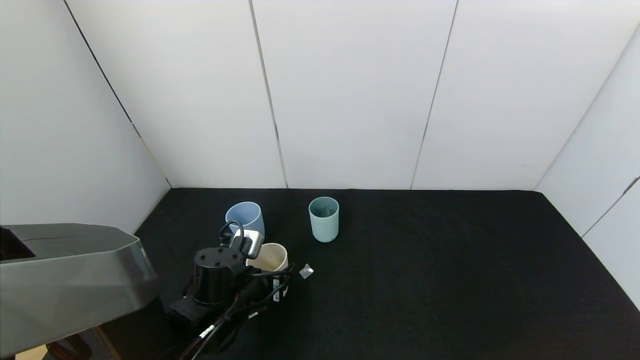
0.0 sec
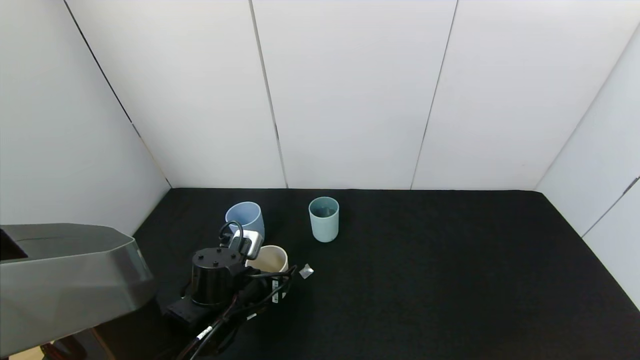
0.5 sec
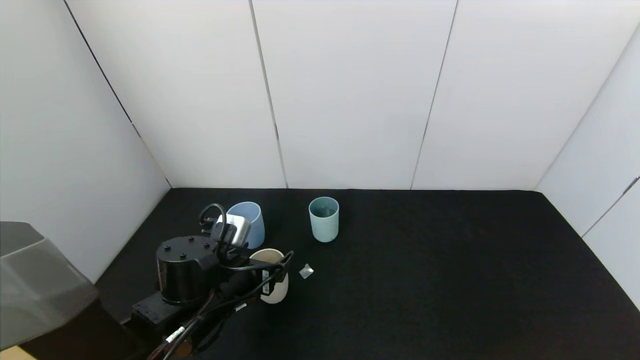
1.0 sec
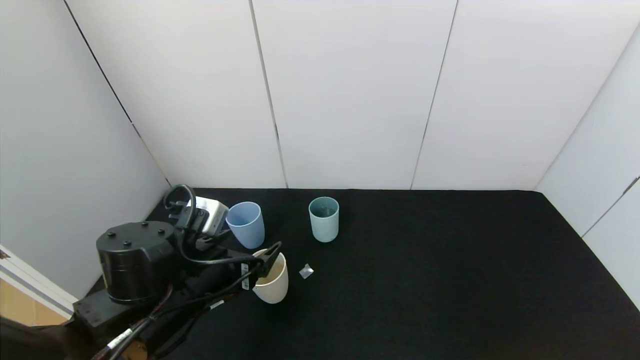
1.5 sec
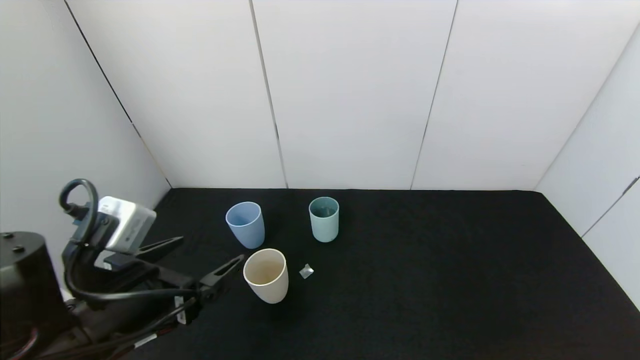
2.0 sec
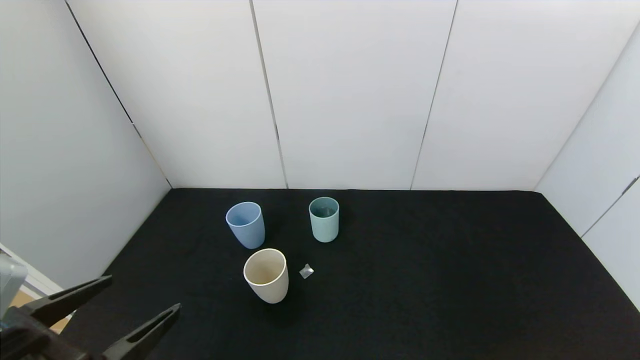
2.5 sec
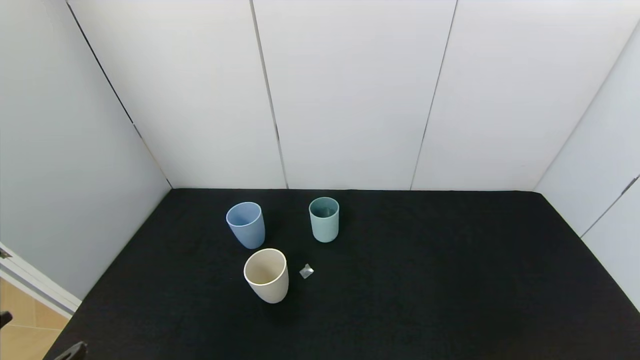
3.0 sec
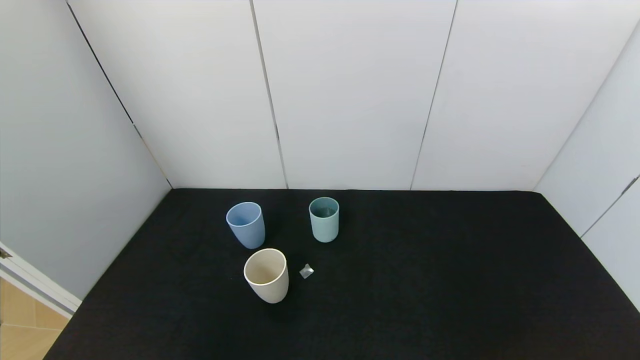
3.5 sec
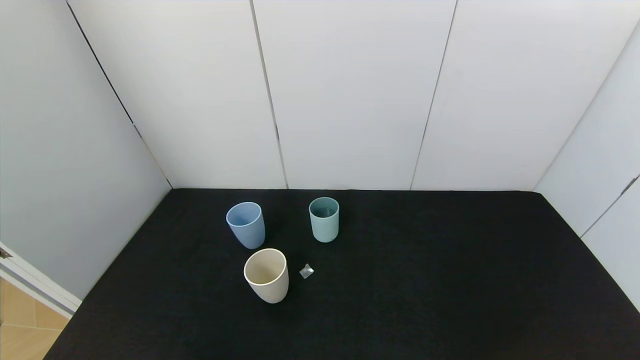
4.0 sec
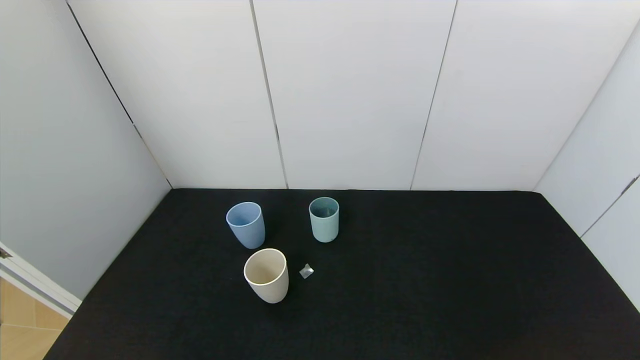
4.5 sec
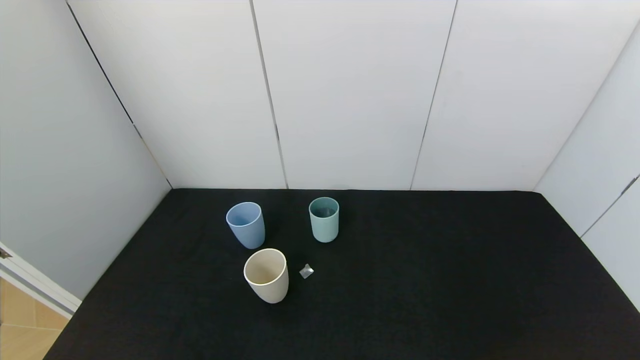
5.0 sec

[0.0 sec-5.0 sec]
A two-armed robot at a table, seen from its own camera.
Task of the whole recording: use the gripper to pour the water into the other two cups on black table.
Step, 0.0 sec to 2.0 sec: Place the white cup with the left gripper.
0.0 sec to 2.5 sec: The left gripper is displaced backward, upward and to the left by some 25 cm, and opens up.
2.5 sec to 5.0 sec: The left gripper is displaced backward and downward by roughly 15 cm.

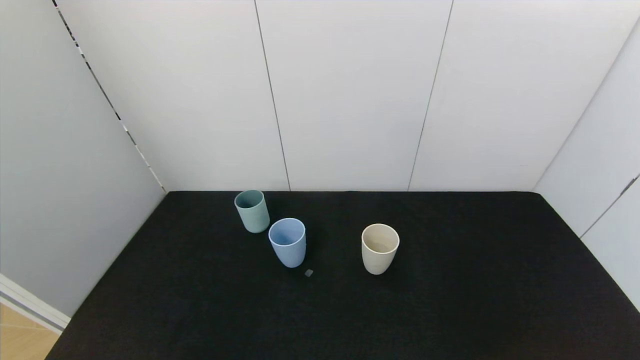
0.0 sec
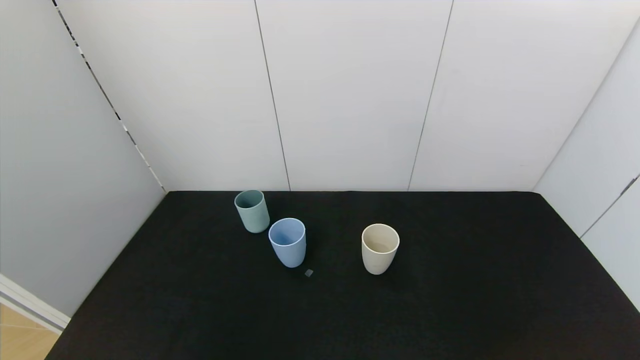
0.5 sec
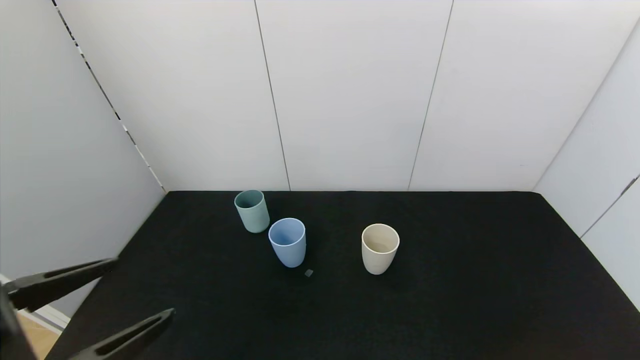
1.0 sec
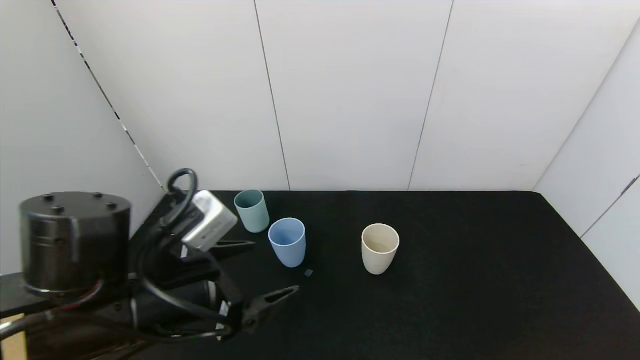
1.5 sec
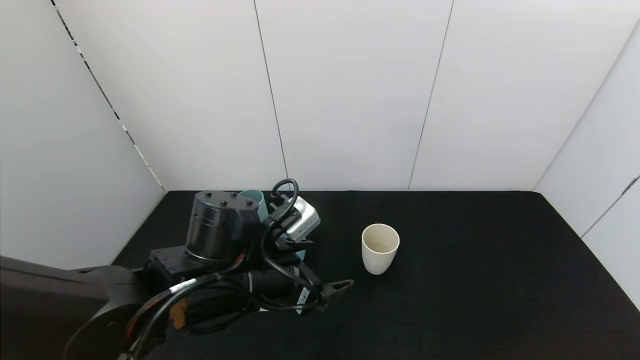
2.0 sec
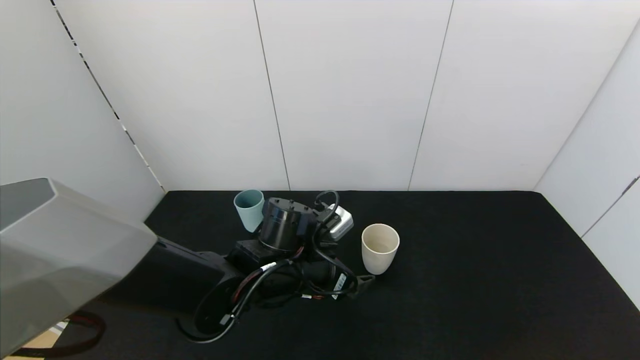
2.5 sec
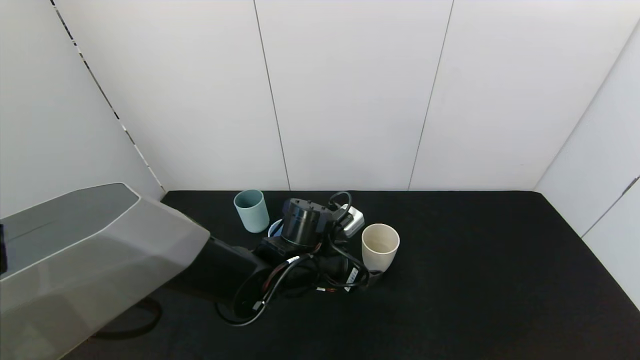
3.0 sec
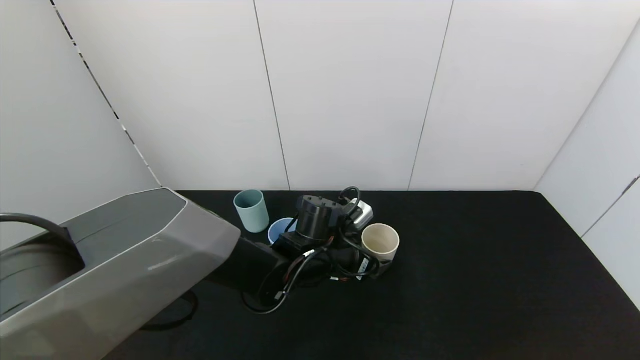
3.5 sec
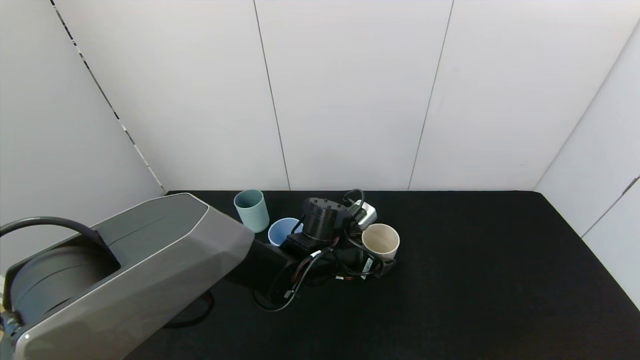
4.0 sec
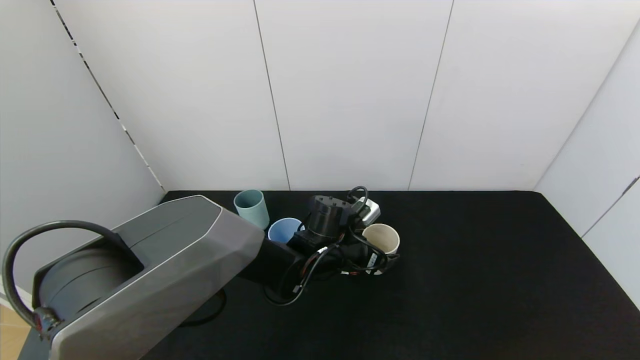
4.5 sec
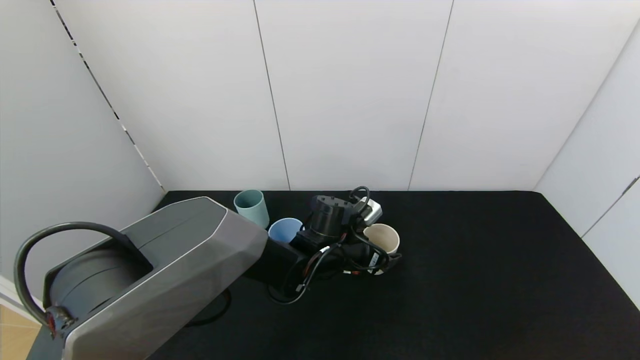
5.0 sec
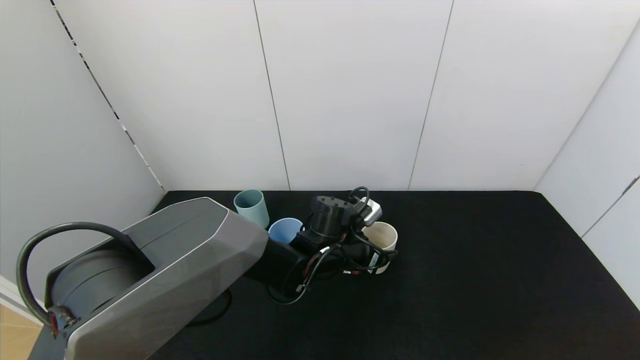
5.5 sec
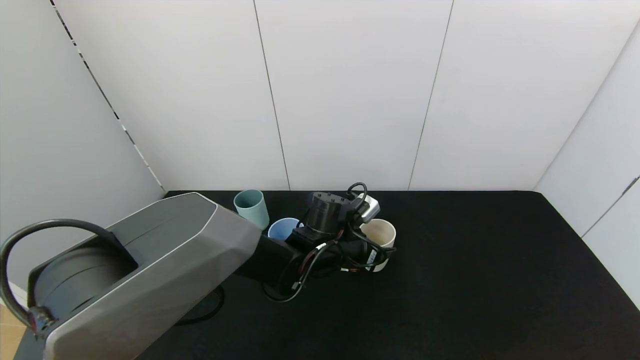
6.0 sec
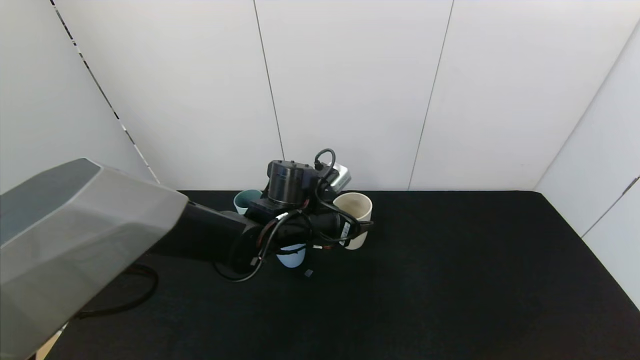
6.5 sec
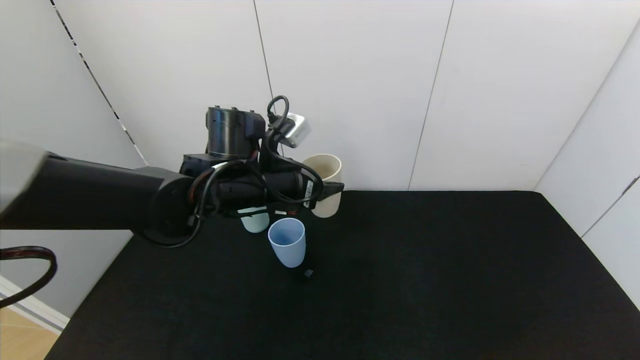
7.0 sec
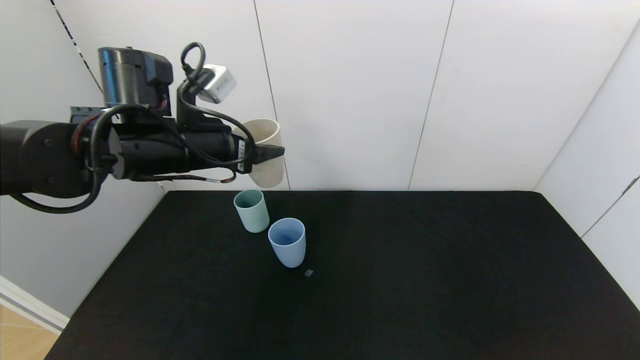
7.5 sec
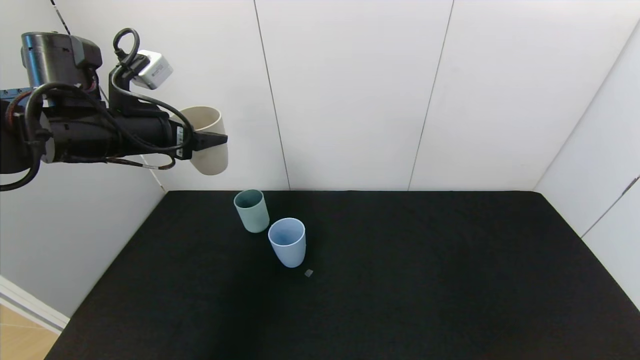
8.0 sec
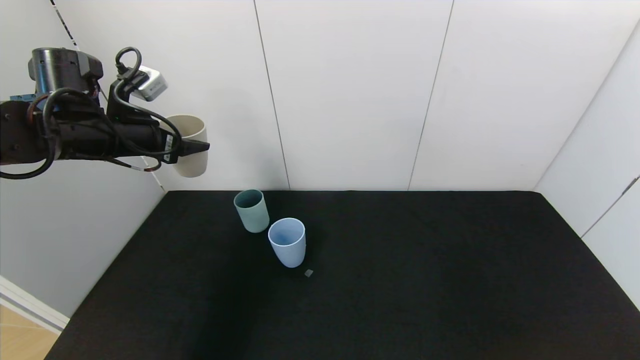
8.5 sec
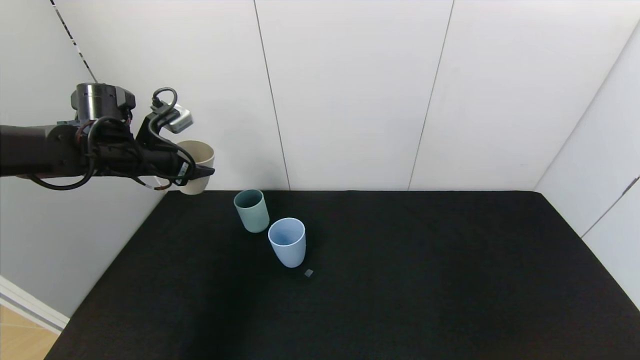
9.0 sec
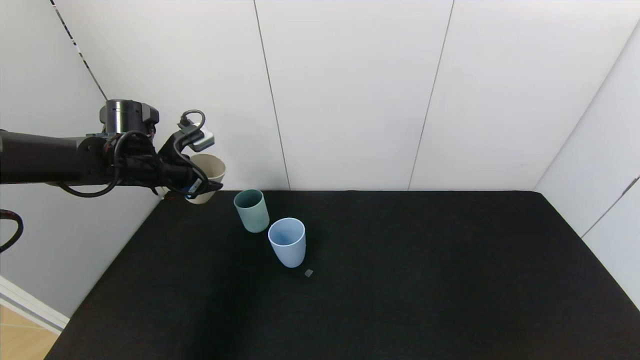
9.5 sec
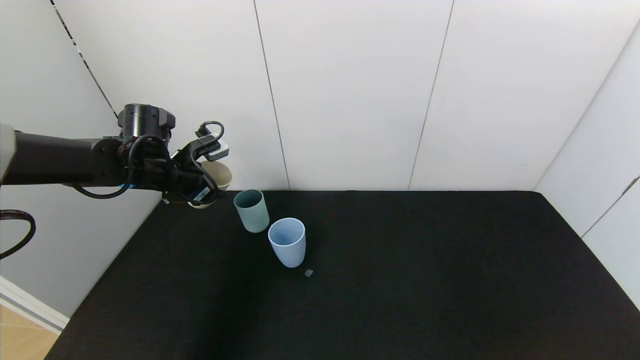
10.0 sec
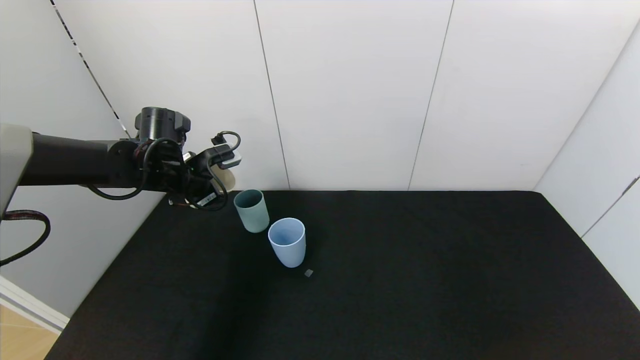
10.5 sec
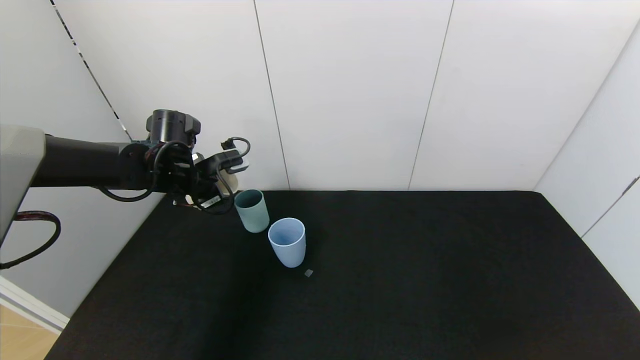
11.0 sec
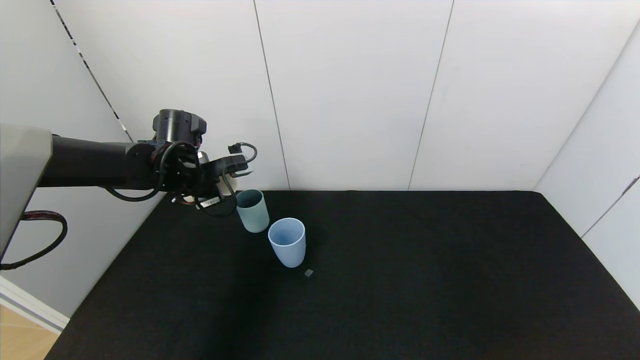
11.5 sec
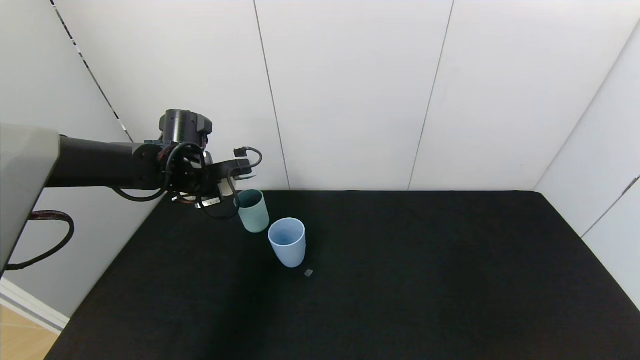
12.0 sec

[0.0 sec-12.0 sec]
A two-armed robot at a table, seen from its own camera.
Task of the whole recording: use the gripper to pour the water into the other two cups on black table.
Step, 0.0 sec to 5.0 sec: Grasp the white cup with the left gripper.
0.0 sec to 2.0 sec: The left gripper travels forward and to the right by roughly 35 cm.
2.0 sec to 4.0 sec: The left gripper goes approximately 15 cm forward, to the right and downward.
4.0 sec to 6.0 sec: The left gripper closes.
6.0 sec to 8.0 sec: The left gripper goes some 35 cm to the left and upward.
8.0 sec to 10.0 sec: The left gripper is displaced downward and forward by approximately 10 cm.

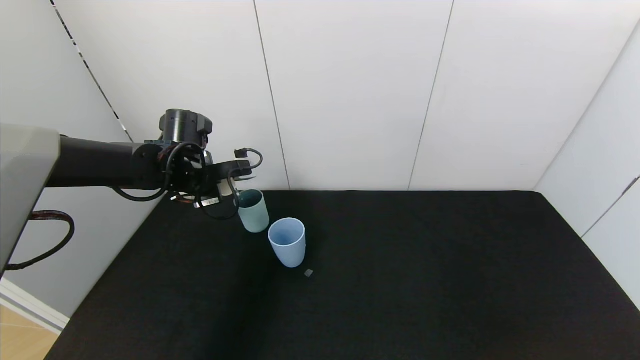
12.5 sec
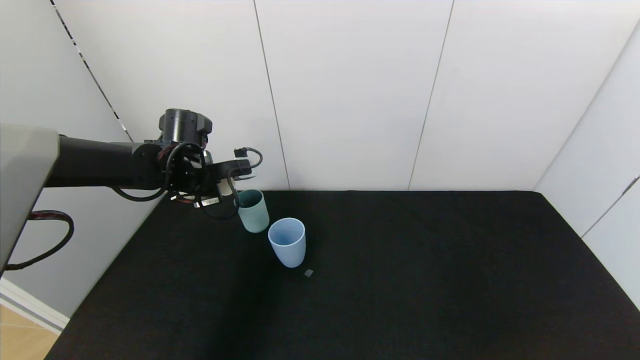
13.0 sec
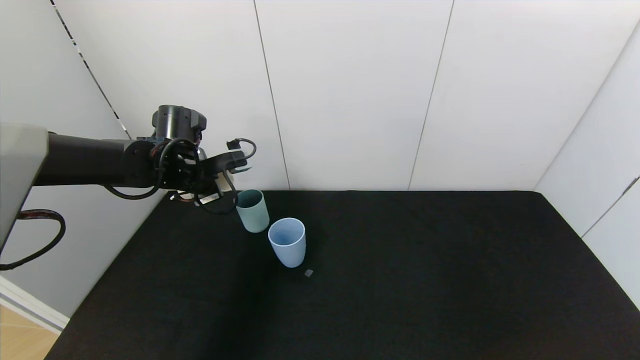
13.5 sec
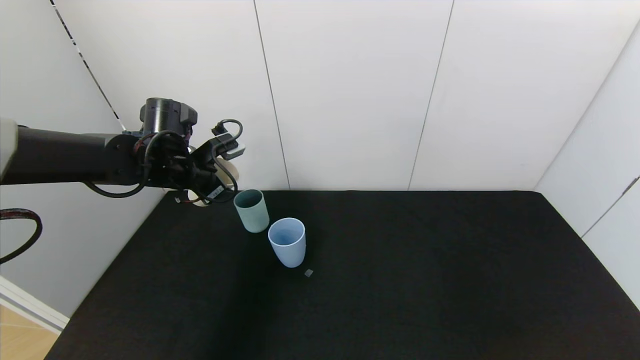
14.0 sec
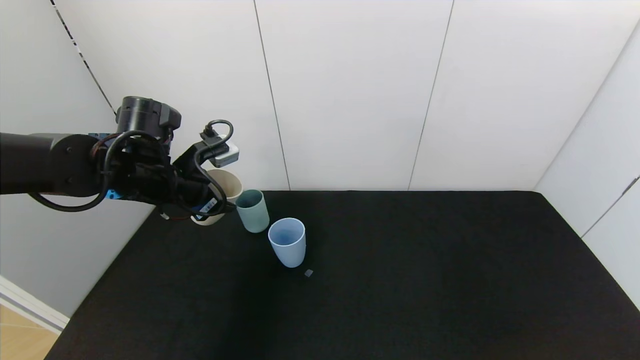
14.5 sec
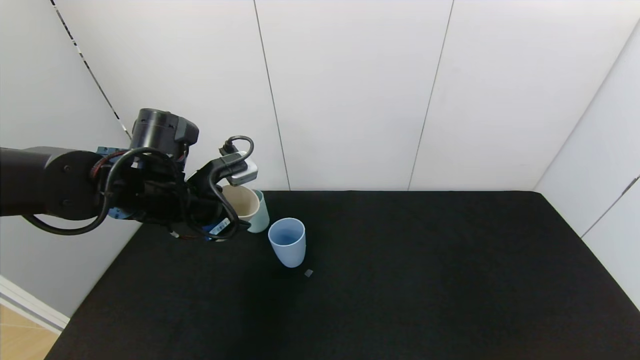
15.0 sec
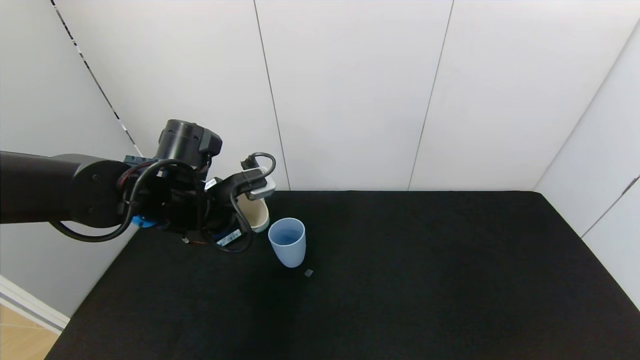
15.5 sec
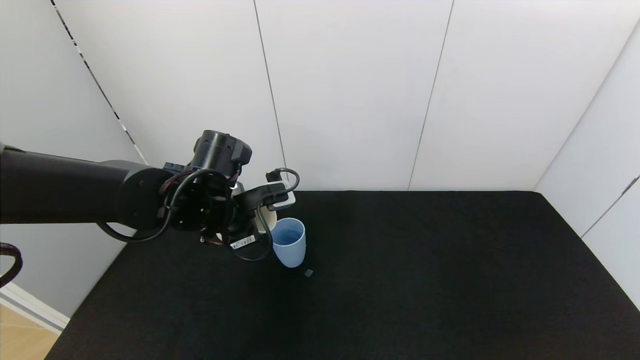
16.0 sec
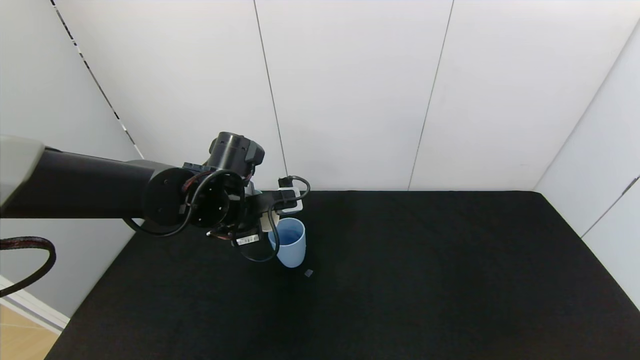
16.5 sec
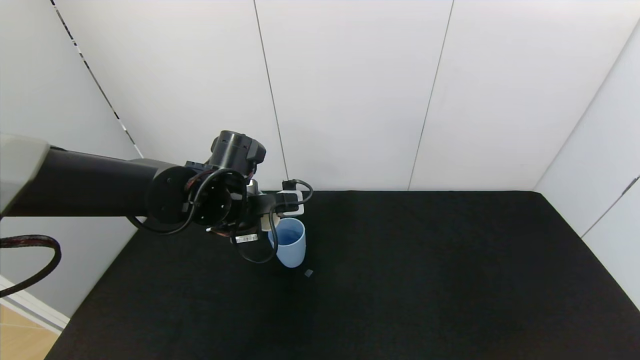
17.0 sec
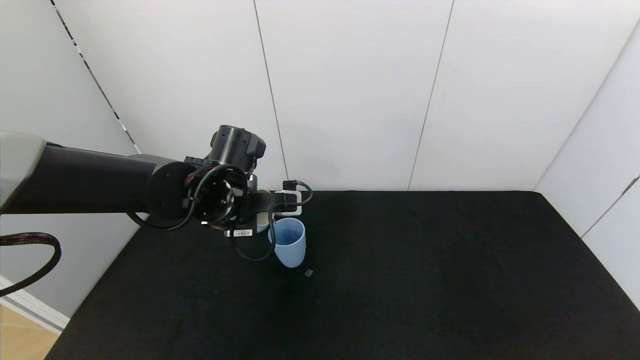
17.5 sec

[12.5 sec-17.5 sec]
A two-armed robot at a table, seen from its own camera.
Task of the whole recording: use the gripper to pour the water into the other two cups on black table.
12.5 sec to 15.0 sec: The left gripper travels backward by approximately 10 cm.
15.0 sec to 17.5 sec: The left gripper is displaced to the right by roughly 5 cm.
